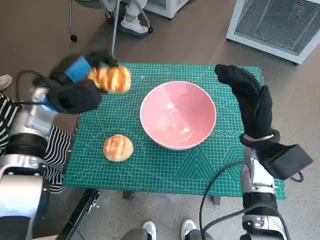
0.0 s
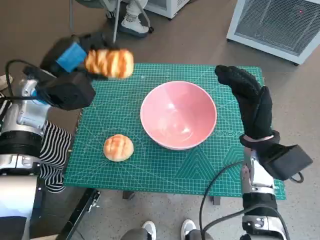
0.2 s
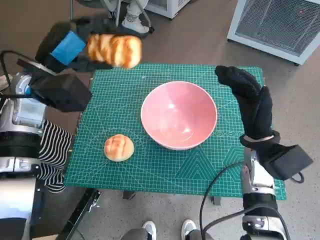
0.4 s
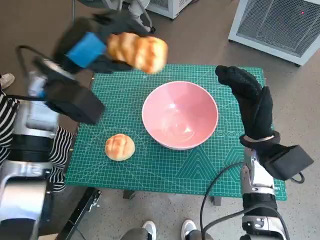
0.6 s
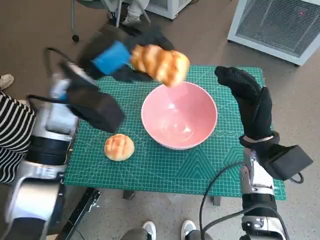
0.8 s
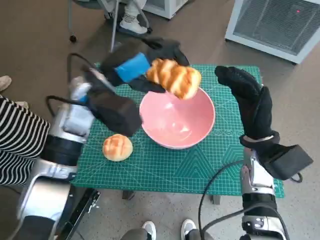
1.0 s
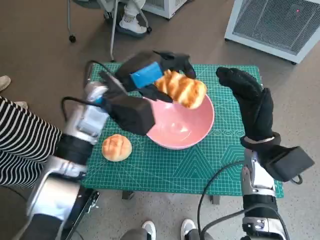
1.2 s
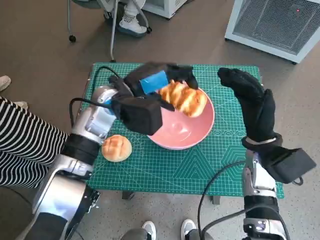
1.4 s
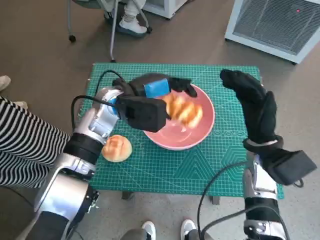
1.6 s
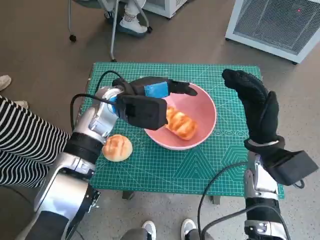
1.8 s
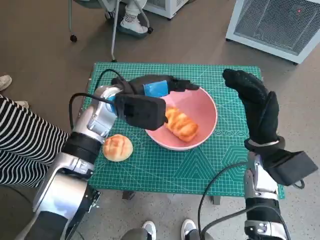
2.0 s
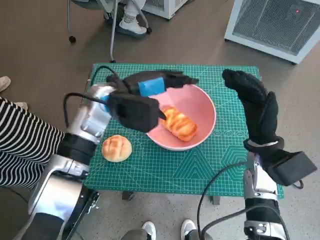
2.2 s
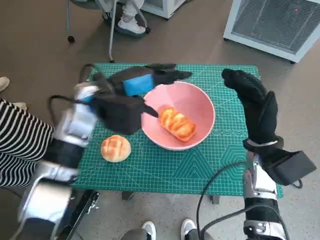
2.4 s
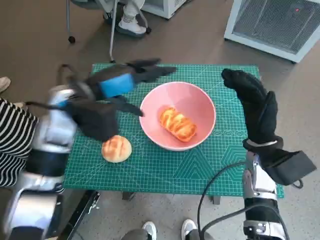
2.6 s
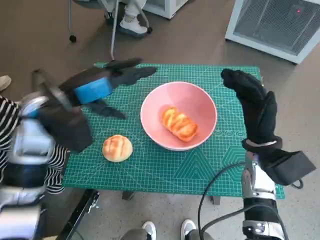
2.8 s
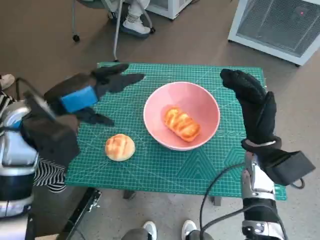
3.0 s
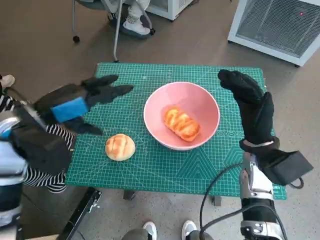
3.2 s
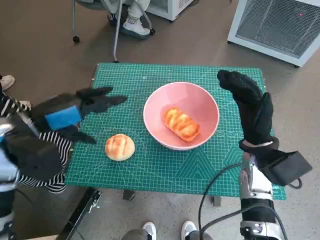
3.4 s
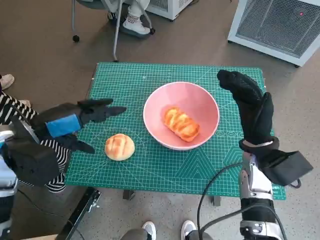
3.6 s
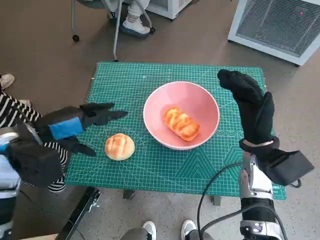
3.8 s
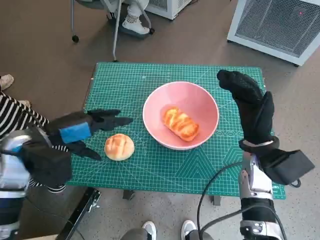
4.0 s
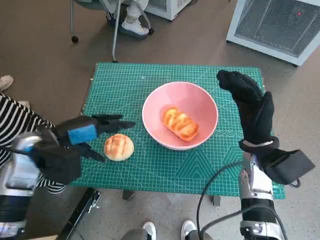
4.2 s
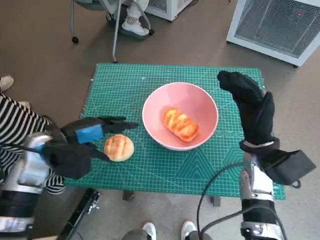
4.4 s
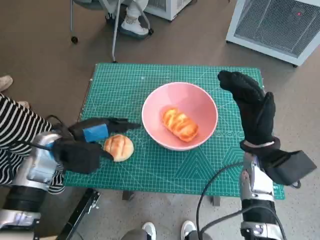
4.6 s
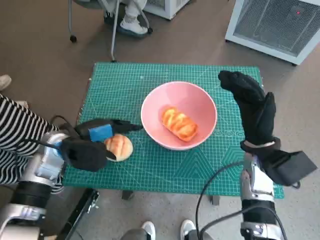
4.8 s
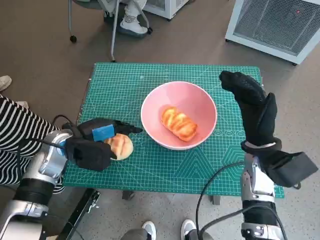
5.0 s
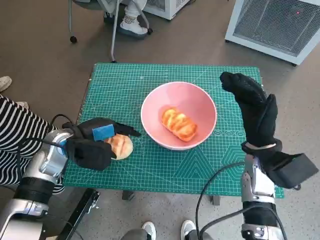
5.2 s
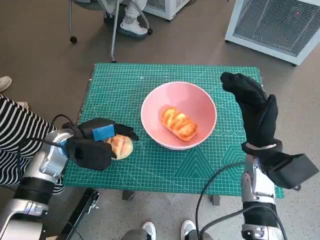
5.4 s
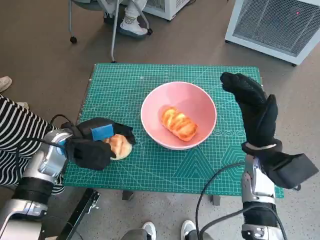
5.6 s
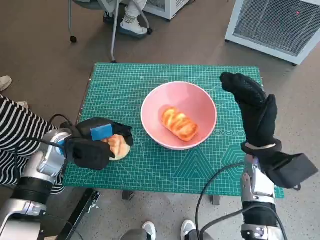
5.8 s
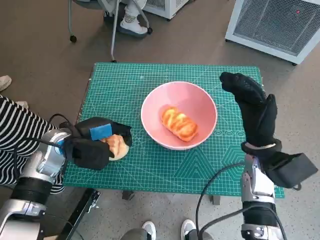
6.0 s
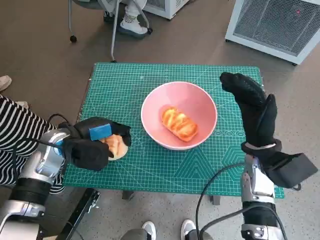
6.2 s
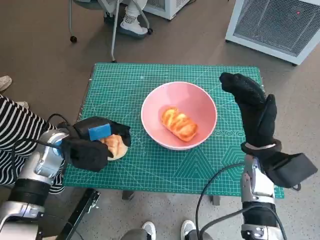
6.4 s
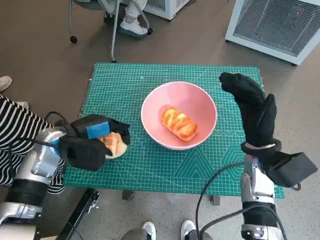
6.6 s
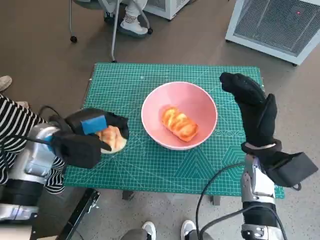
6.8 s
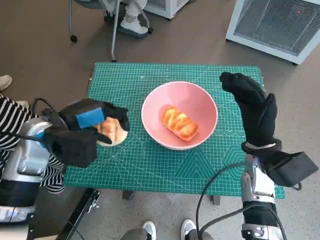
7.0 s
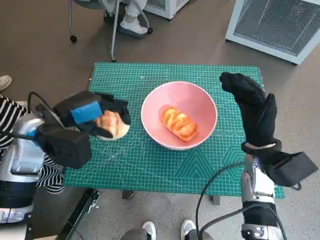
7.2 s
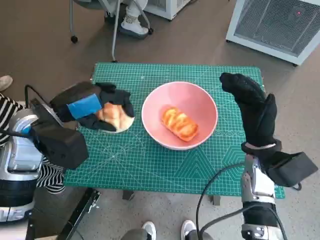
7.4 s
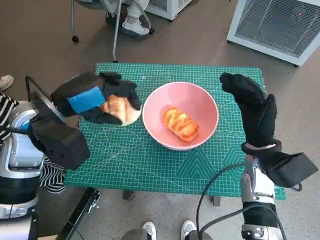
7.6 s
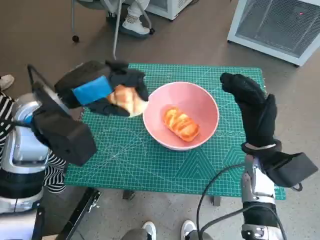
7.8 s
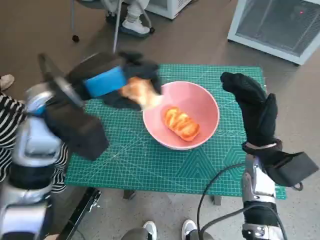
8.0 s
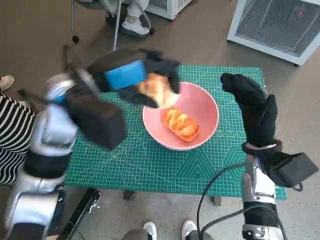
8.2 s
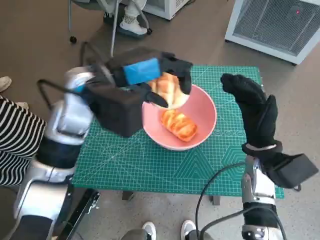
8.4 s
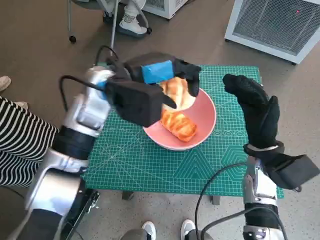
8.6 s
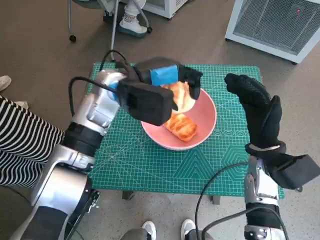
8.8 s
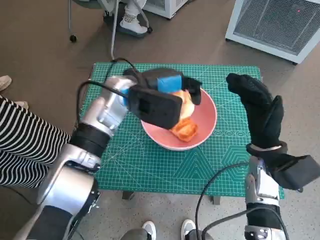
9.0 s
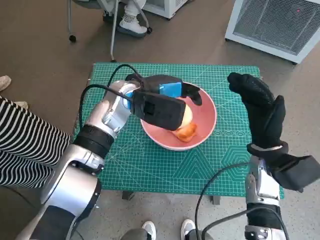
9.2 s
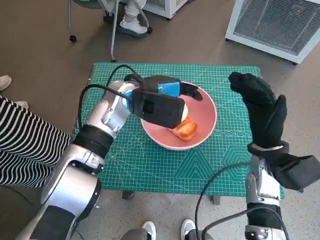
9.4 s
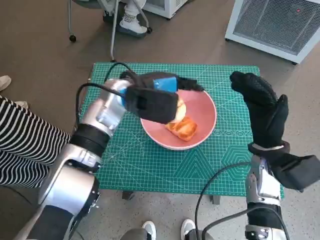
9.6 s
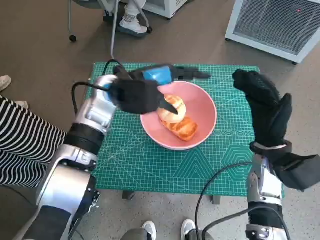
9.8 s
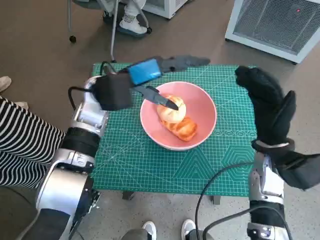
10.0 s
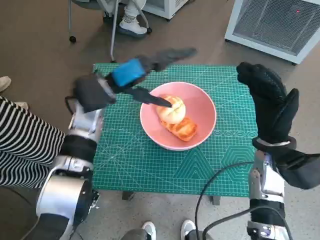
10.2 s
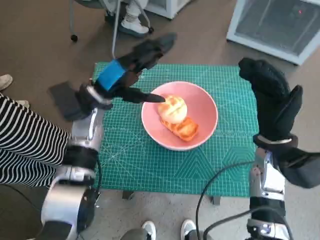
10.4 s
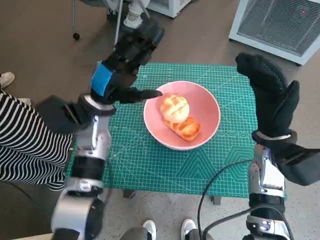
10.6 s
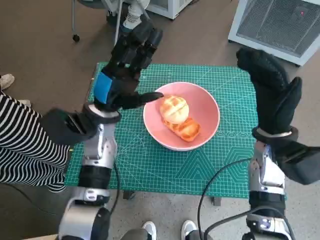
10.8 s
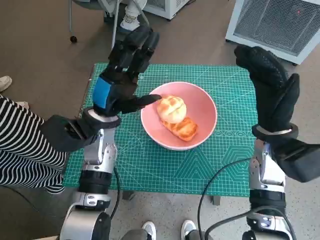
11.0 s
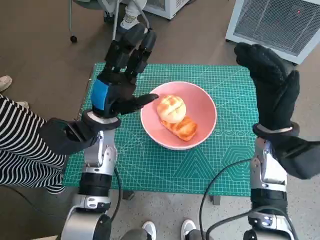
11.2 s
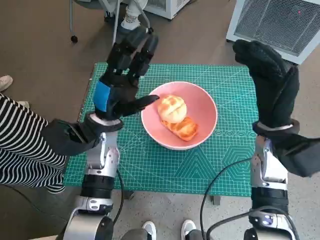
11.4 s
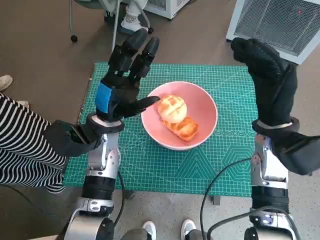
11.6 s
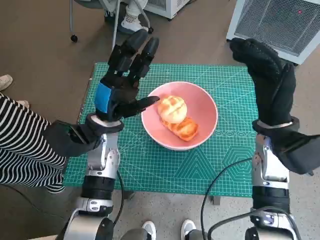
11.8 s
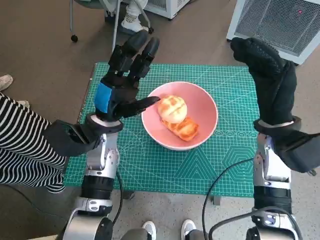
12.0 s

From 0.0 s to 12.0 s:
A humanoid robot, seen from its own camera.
Task of the whole recording: Push the bowl into the center of the table and put the bread into the bowl.
Step, from 0.0 s to 2.2 s: Place the long bread in pink bowl with left hand.
Step, from 2.4 s to 5.6 s: Grasp the round bread with left hand.
Step, from 5.8 s to 10.0 s: Place the round bread in pink bowl with left hand.
From 0.0 s to 1.6 s: The left hand heads to the right, covering approximately 15 cm.
From 1.6 s to 3.0 s: The left hand shifts approximately 15 cm to the left and backward.
From 3.0 s to 4.4 s: The left hand heads downward, covering approximately 10 cm.
From 4.4 s to 6.0 s: There are only small adjustments of the hands.
From 6.0 s to 7.6 s: The left hand goes roughly 10 cm upward.
From 7.6 s to 9.0 s: The left hand shifts roughly 15 cm to the right and forward.
From 9.0 s to 10.4 s: The left hand moves to the left, about 5 cm.
From 10.4 s to 12.0 s: The left hand shifts by about 5 cm.

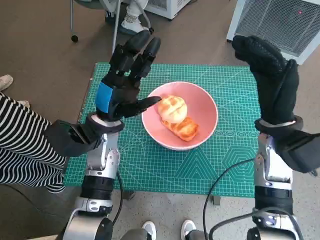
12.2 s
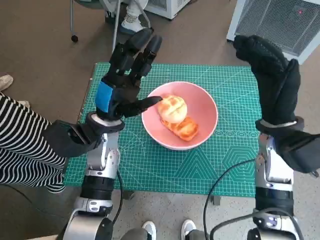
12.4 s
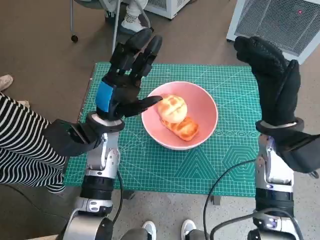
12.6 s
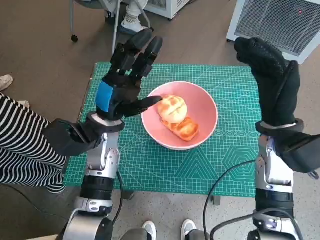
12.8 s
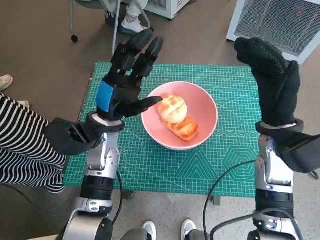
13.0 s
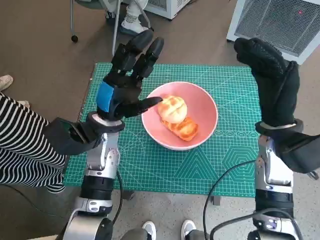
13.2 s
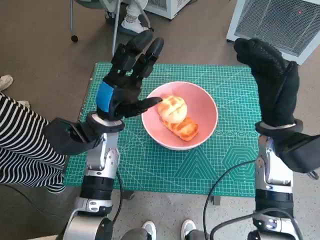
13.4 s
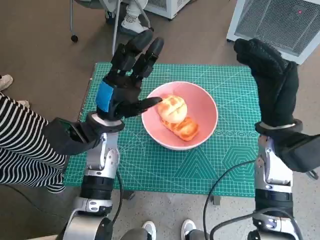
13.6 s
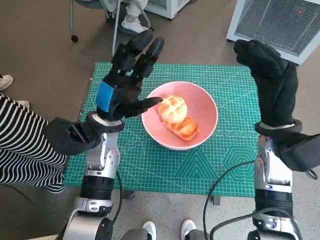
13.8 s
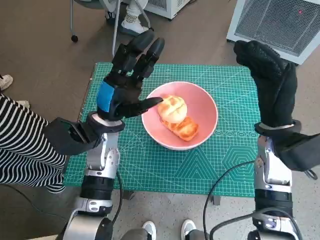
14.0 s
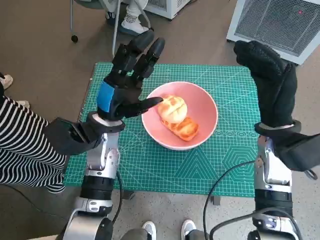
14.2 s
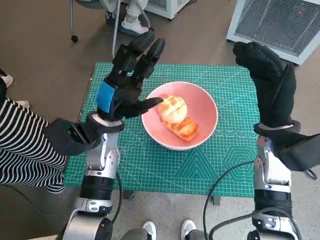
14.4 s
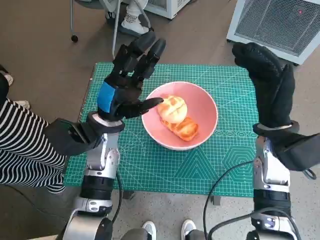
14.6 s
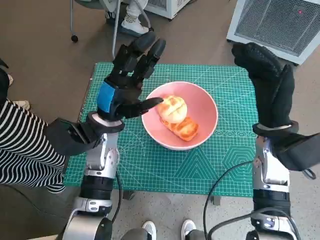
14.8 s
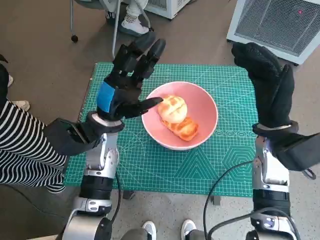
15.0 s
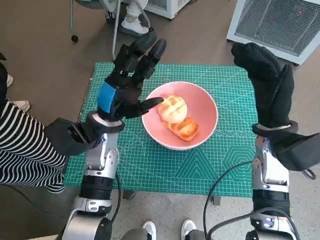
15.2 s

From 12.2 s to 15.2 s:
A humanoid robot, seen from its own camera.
Task of the whole recording: Push the bowl into the center of the table and put the bread into the bowl.
From 12.2 s to 15.2 s: Neither hand changes place.

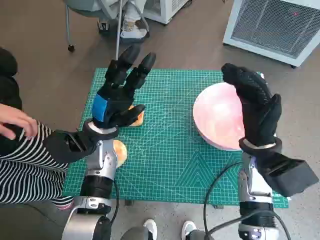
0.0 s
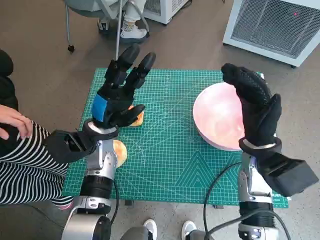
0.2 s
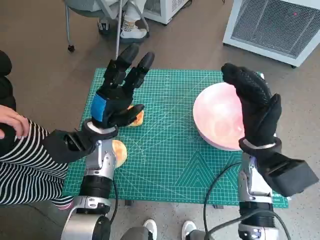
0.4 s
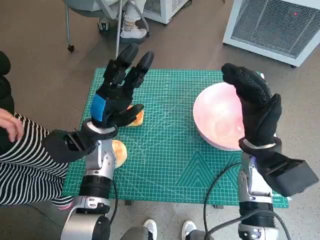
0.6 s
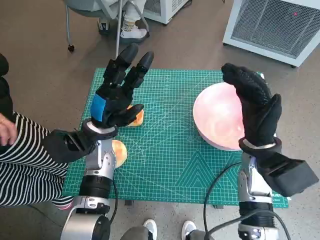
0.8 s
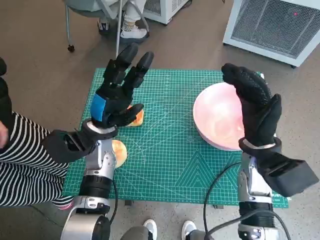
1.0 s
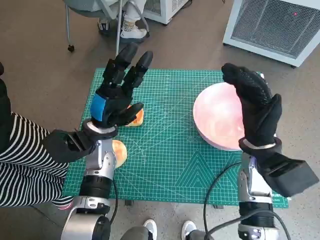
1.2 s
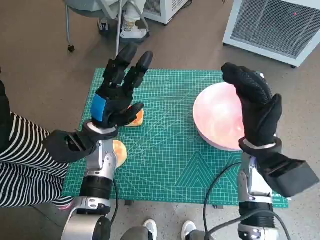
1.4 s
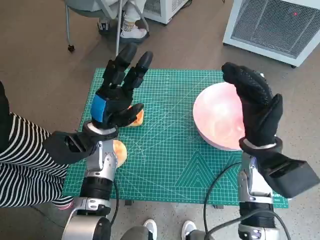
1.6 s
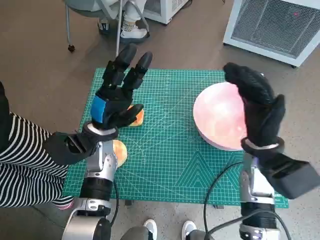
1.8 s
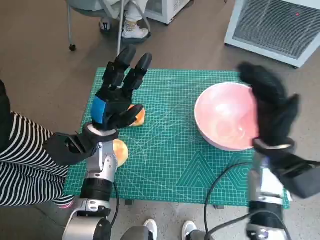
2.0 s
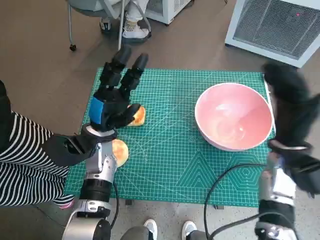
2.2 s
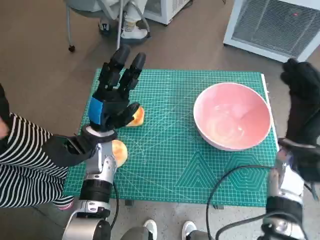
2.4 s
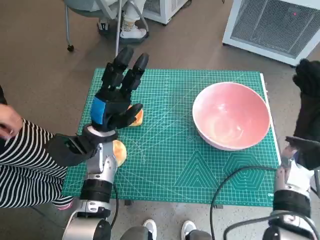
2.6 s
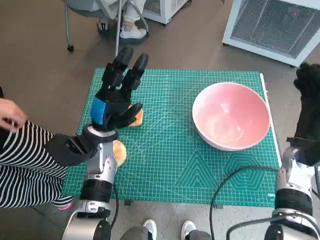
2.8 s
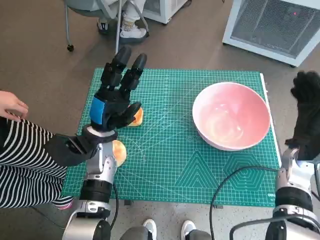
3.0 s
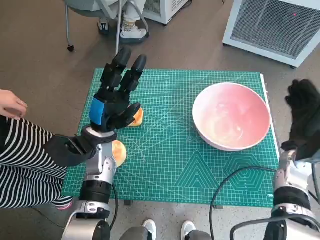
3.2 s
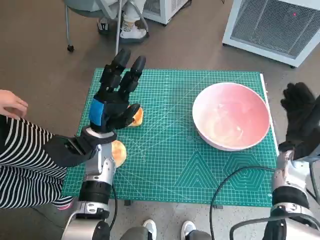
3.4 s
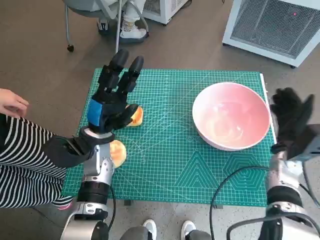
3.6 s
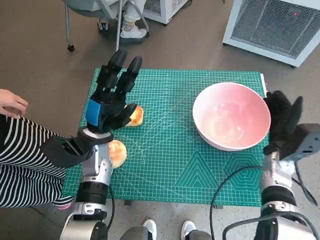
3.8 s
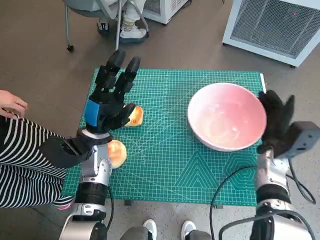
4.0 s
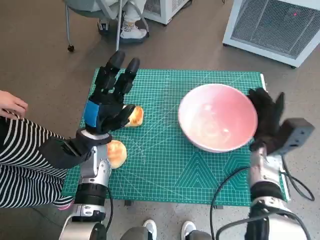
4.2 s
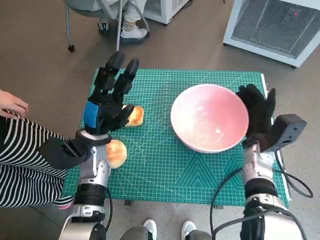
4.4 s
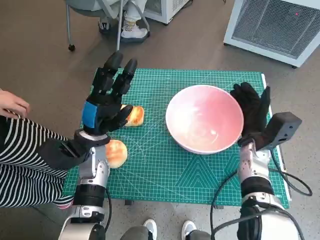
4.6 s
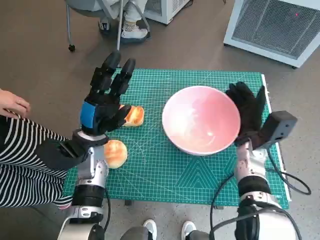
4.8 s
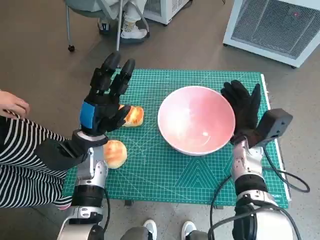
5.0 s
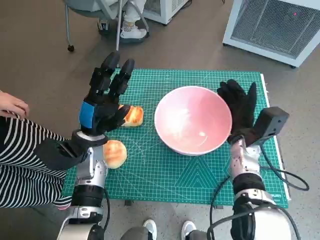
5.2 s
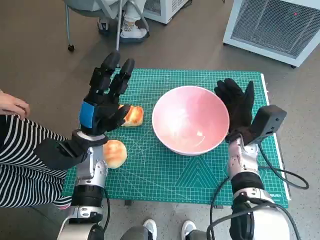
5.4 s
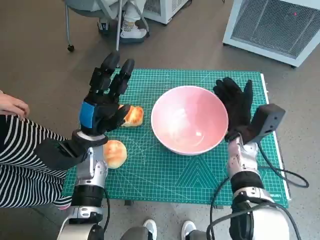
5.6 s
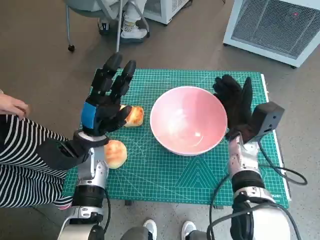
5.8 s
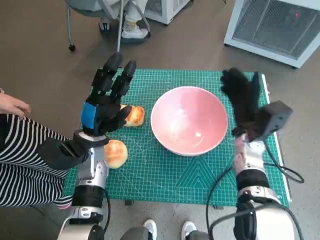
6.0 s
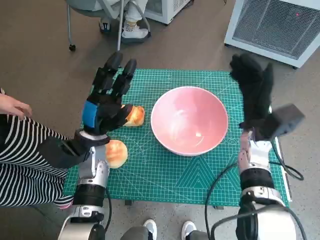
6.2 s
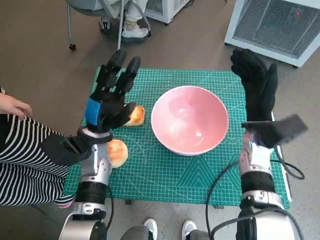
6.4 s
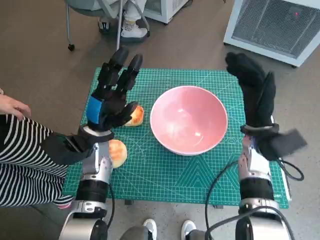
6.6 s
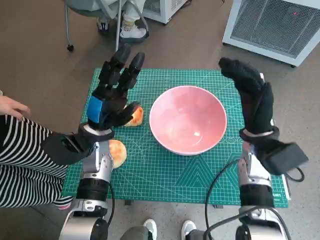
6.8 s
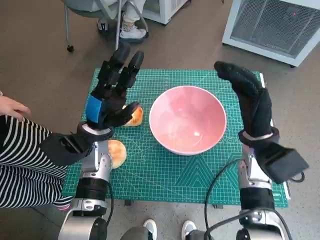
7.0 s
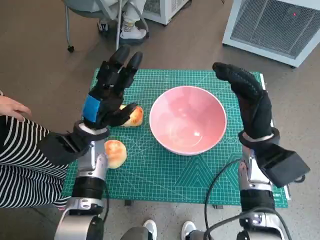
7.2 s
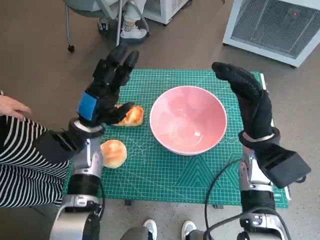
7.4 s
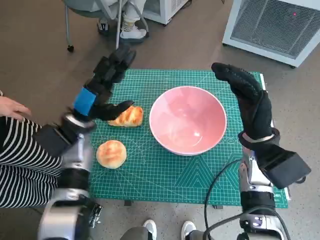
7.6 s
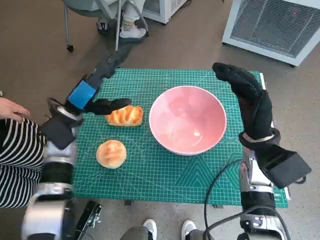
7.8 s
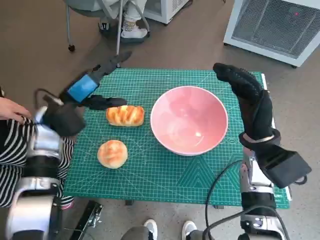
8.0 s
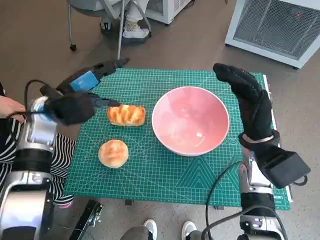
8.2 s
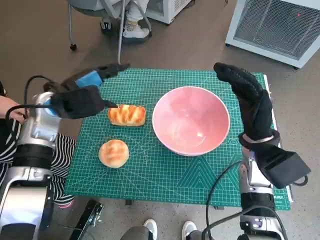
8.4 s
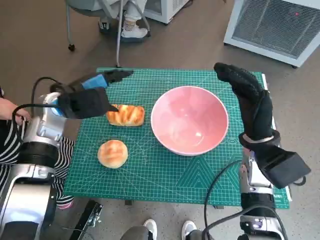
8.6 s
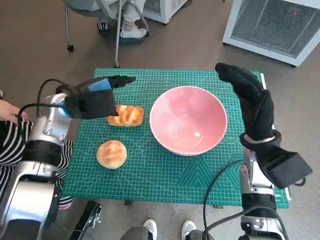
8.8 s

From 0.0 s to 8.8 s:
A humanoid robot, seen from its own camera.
Task of the whole recording: Push the bowl into the center of the table and put the bread into the bowl.
Step, from 0.0 s to 5.8 s: Move the pink bowl to the center of table with right hand.
From 1.4 s to 3.0 s: The right hand moves to the right, some 10 cm.
From 3.0 s to 4.4 s: The right hand travels to the left by some 5 cm.
From 5.8 s to 7.4 s: The right hand heads upward, covering approximately 5 cm.
From 7.4 s to 8.8 s: The left hand heads upward, covering about 5 cm.
